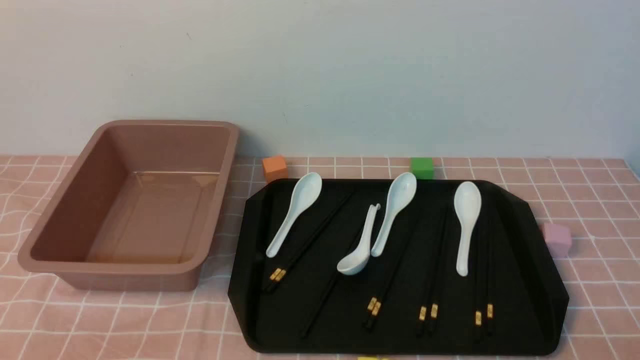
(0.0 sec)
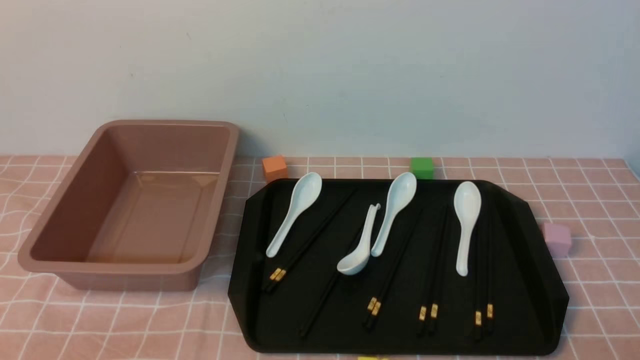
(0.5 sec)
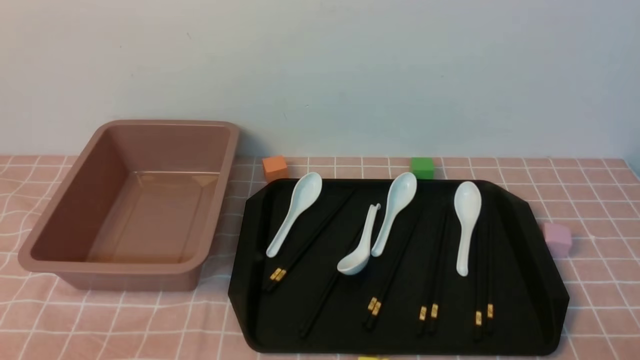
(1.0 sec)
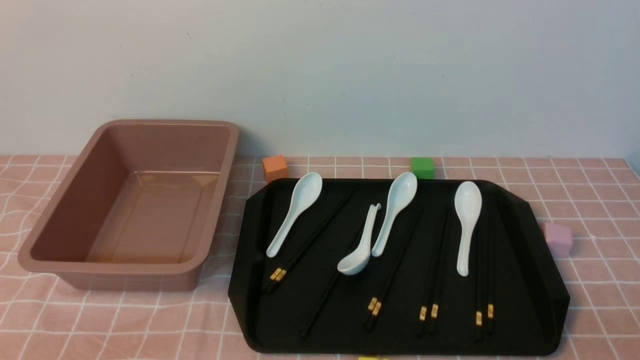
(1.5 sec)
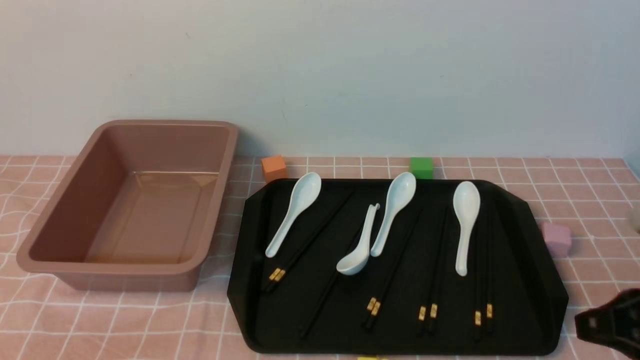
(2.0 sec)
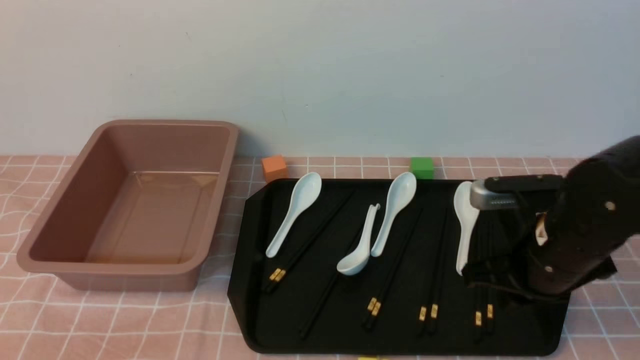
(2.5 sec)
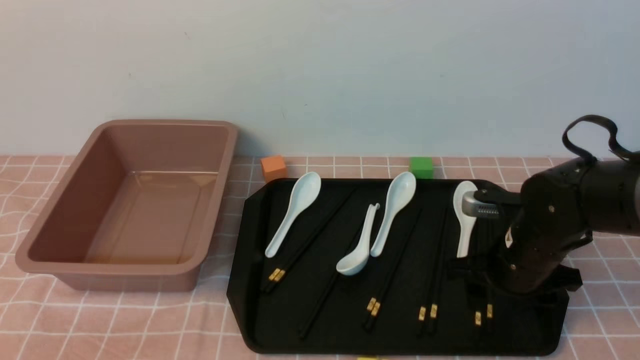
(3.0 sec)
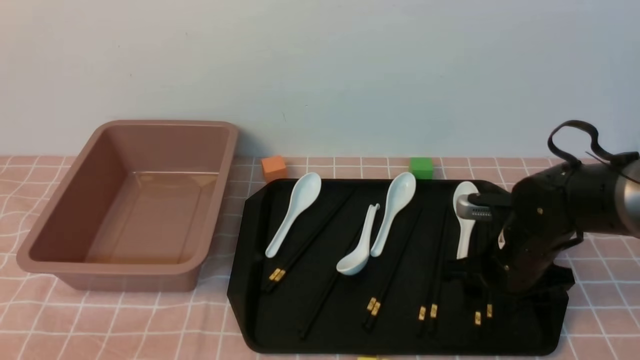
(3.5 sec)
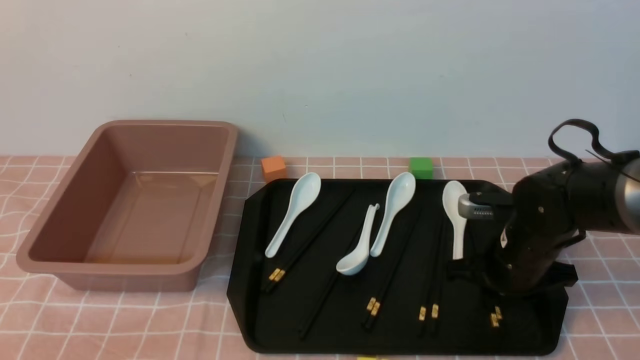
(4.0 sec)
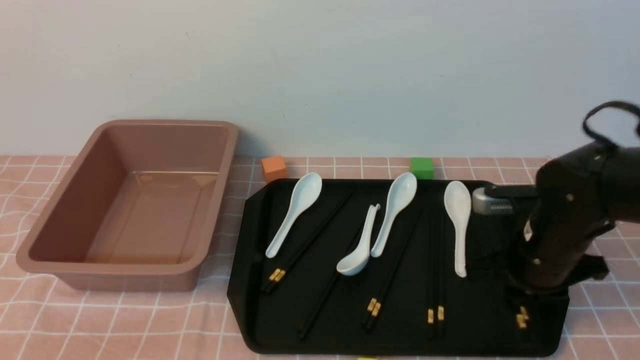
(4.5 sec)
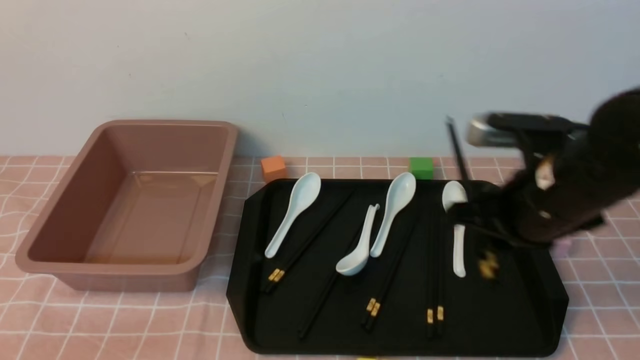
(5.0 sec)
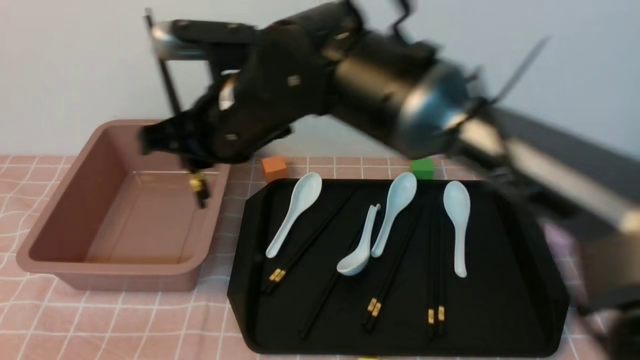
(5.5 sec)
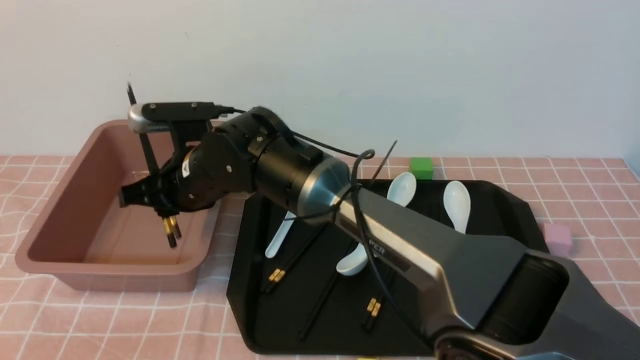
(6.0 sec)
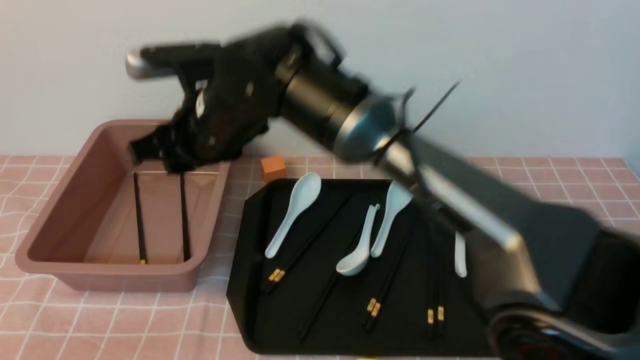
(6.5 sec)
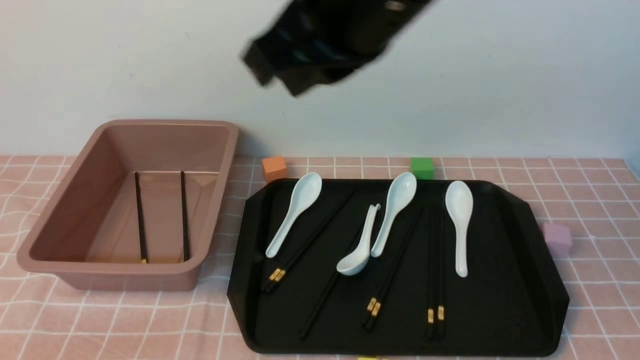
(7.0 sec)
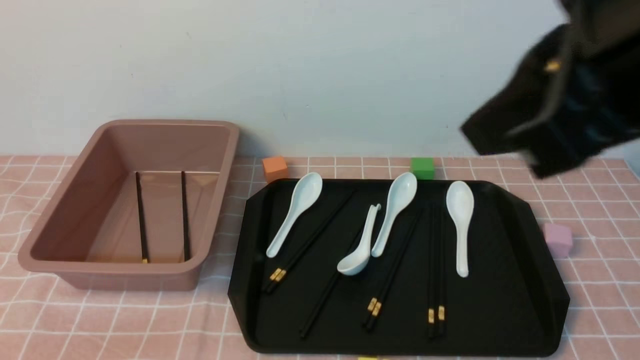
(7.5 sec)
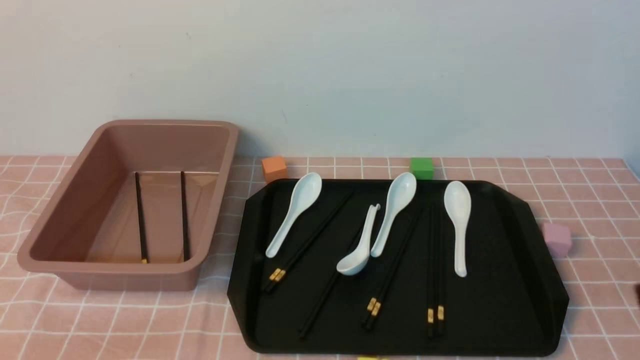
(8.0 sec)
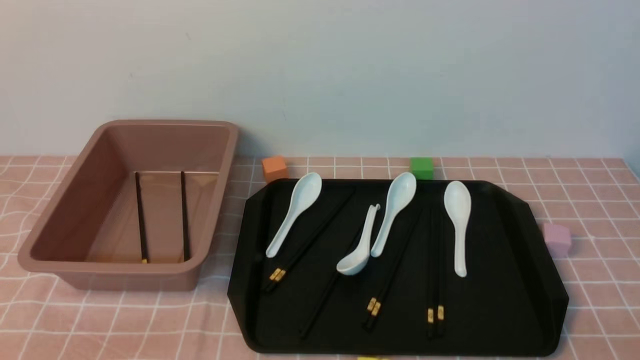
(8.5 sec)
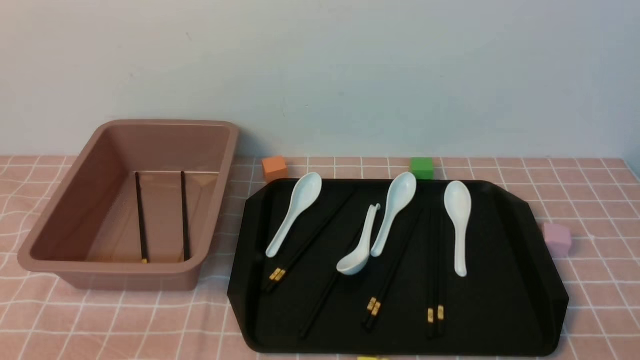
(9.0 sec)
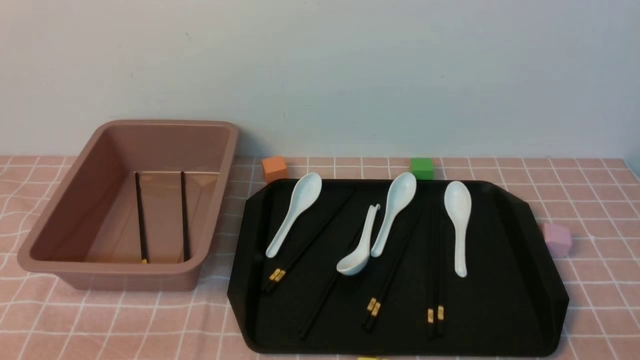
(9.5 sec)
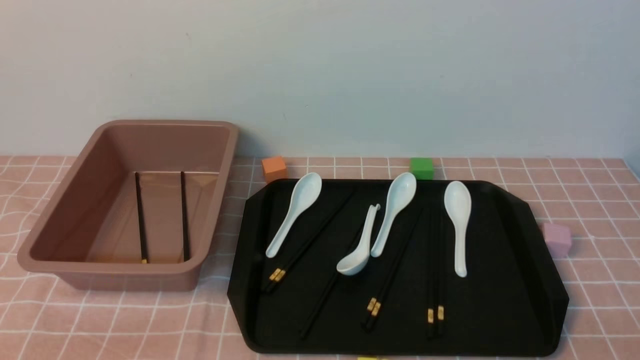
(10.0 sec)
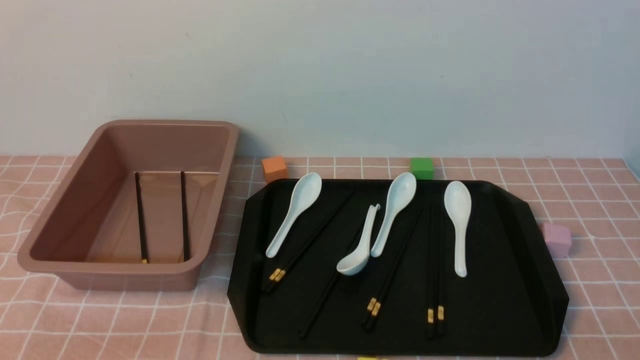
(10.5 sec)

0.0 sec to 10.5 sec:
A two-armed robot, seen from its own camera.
Step, 0.0 sec to 4.5 sec: use the right arm to grab a pair of chopsticks.
Step, 5.0 sec to 6.0 sec: use the right arm to put the chopsticks into the lunch box.
0.0 sec to 2.0 sec: The right gripper heads forward and upward, covering roughly 15 cm, and closes.
2.0 sec to 4.0 sec: The right gripper is displaced forward and downward by some 20 cm, and opens and closes again.
4.0 sec to 6.5 sec: The right gripper moves to the left and upward, some 35 cm.
6.5 sec to 8.5 sec: The right gripper goes roughly 50 cm to the right and backward, and closes its fingers.
8.5 sec to 10.5 sec: Neither gripper changes place.

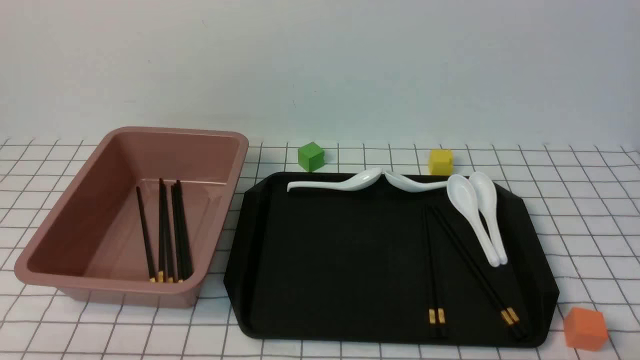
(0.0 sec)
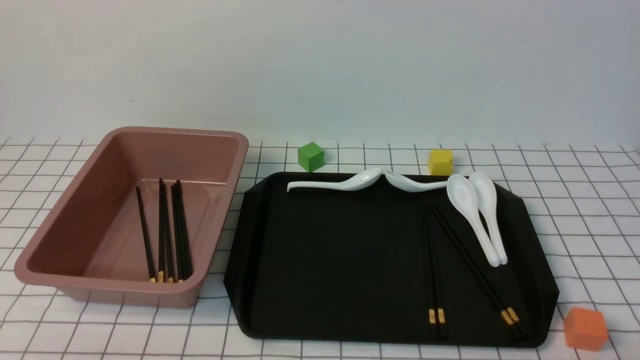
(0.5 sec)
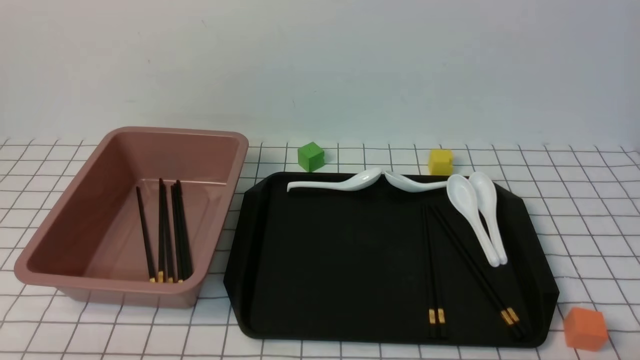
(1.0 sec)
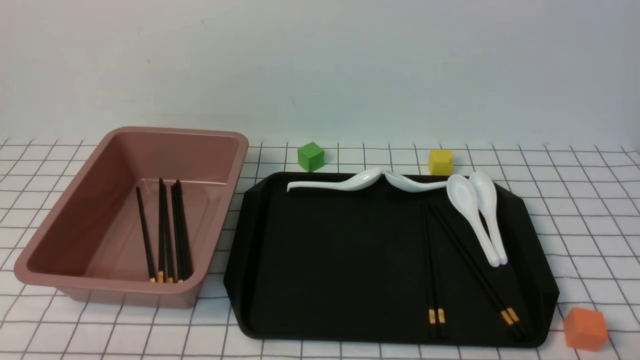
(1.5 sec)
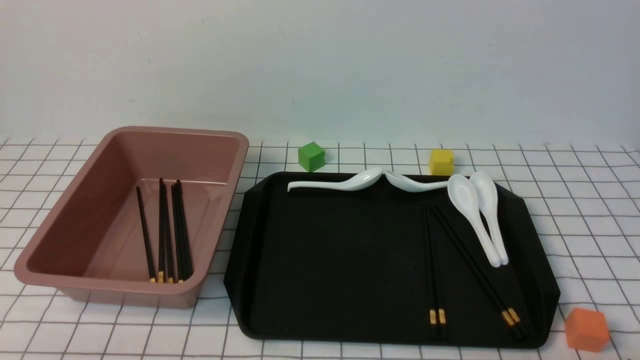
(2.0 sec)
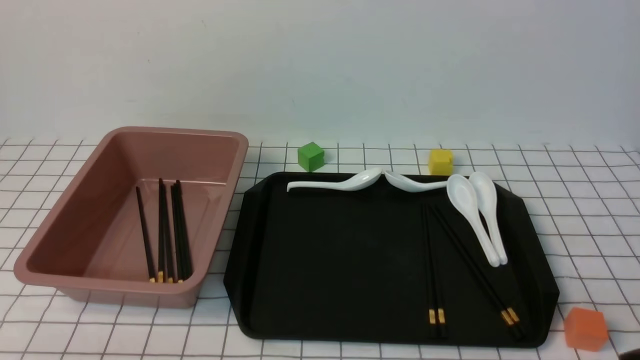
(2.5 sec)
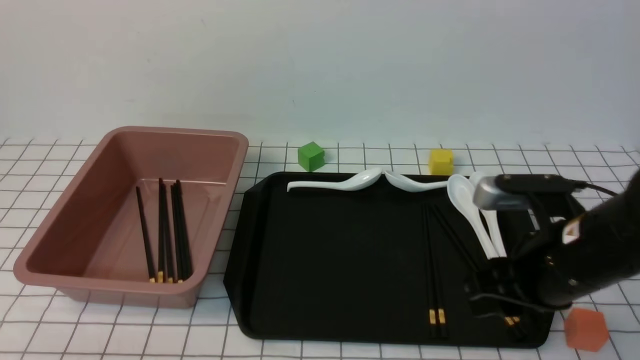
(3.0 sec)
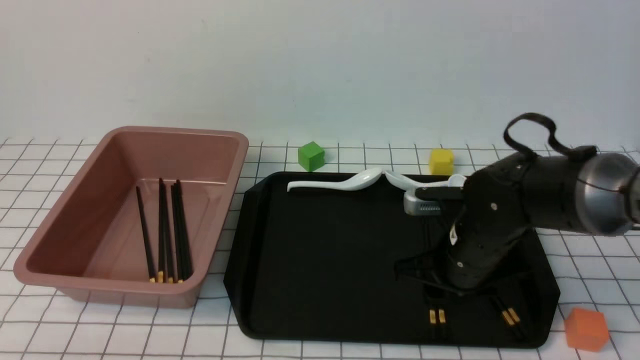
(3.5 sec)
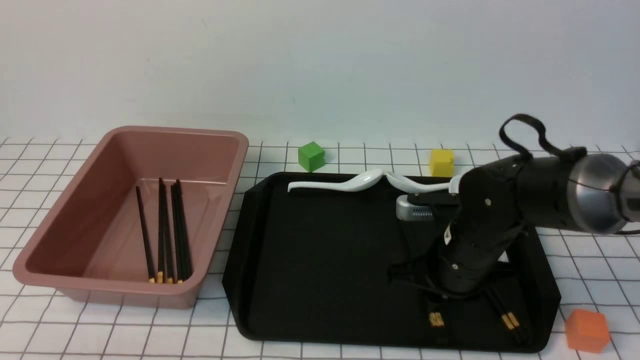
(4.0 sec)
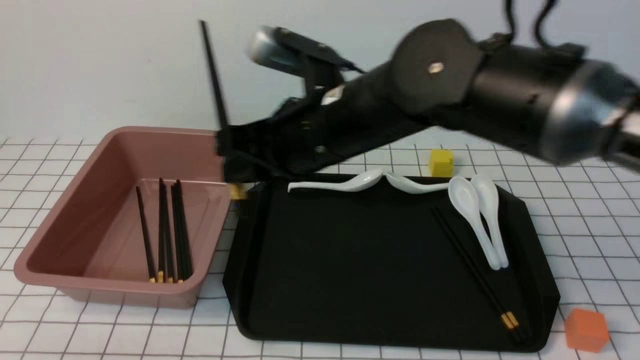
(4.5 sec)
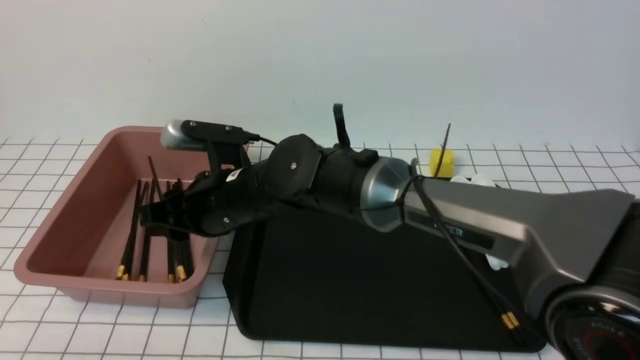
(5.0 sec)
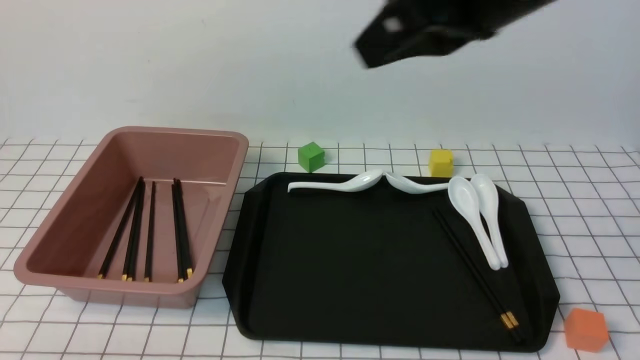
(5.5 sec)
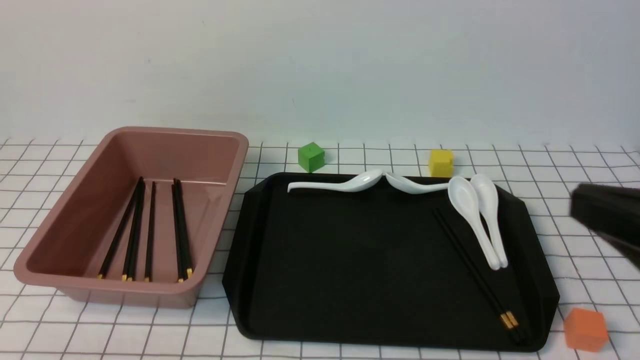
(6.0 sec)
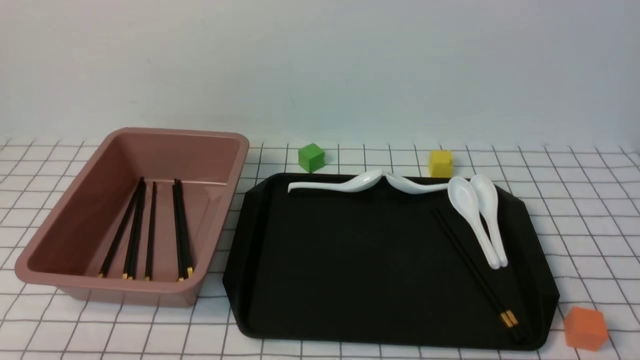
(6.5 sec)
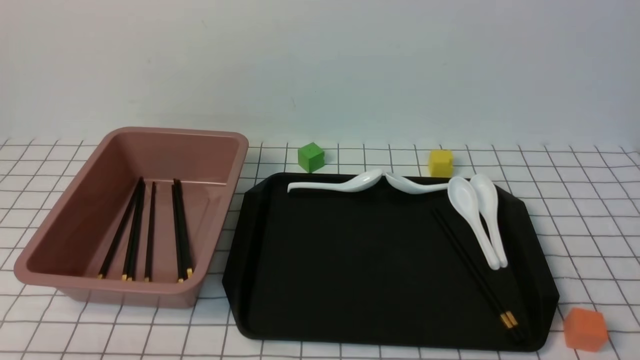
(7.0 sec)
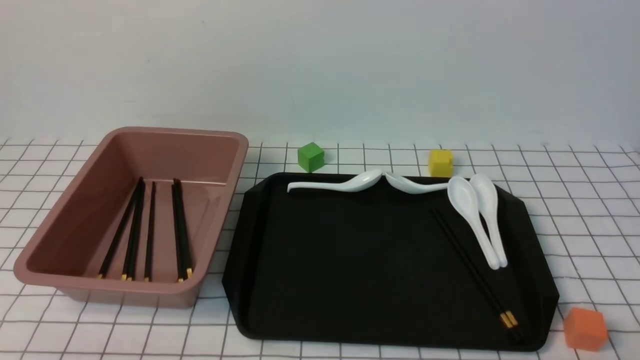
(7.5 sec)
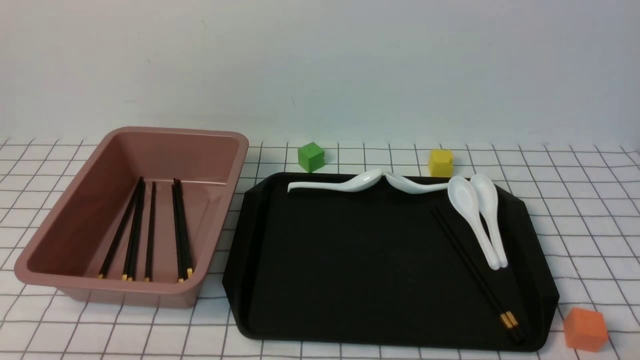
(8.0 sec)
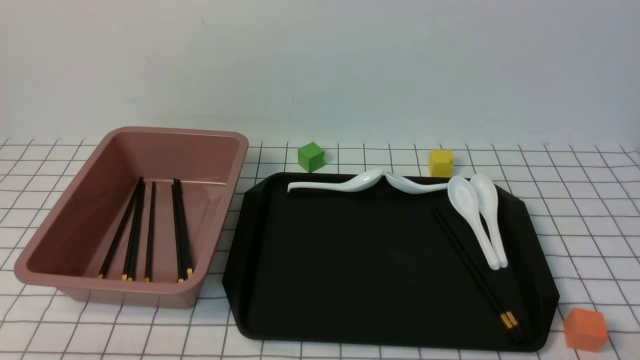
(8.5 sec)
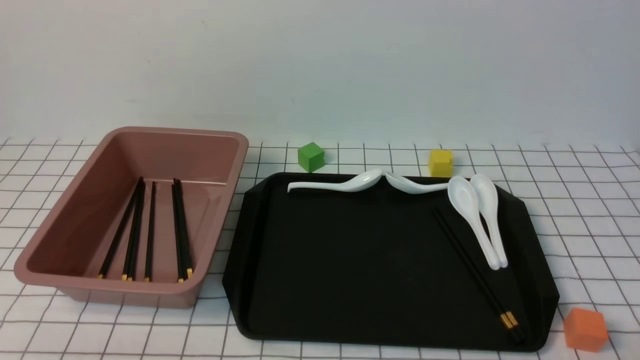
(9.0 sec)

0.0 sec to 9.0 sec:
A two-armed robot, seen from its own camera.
Step, 0.0 sec to 4.0 sec: use the right arm to grab a pair of chopsticks.
Step, 4.5 sec to 5.0 sec: use the right arm to put the chopsticks into the lunch box.
2.0 sec to 4.5 sec: The left gripper opens up, while the right gripper moves to the left and forward, about 40 cm, and opens, then closes once more.
4.5 sec to 7.0 sec: The right gripper moves to the right and backward, about 40 cm, and closes.
